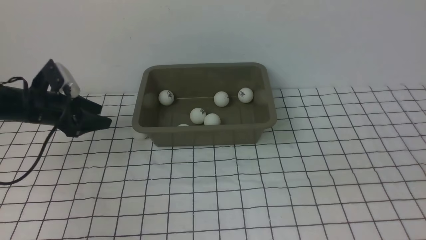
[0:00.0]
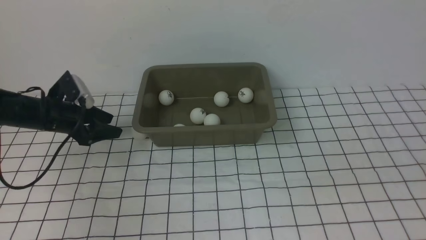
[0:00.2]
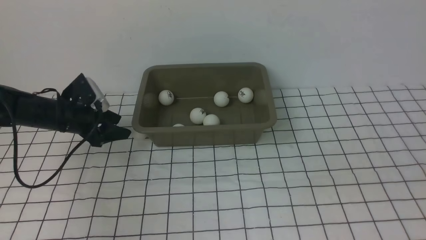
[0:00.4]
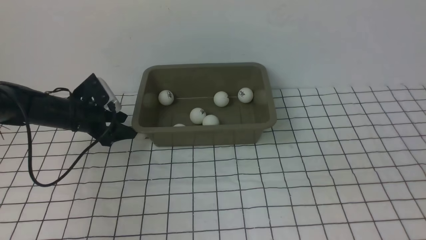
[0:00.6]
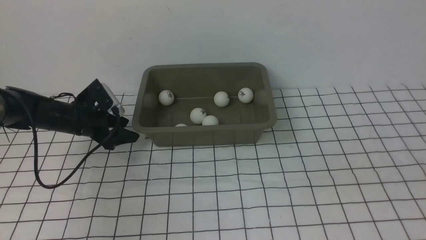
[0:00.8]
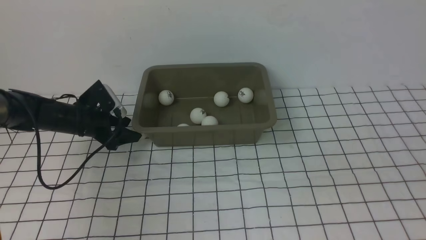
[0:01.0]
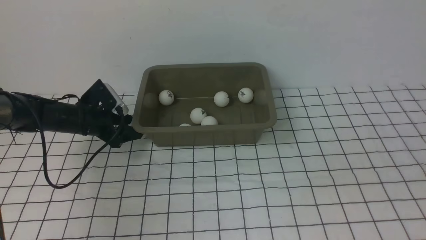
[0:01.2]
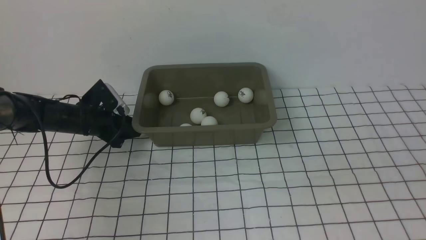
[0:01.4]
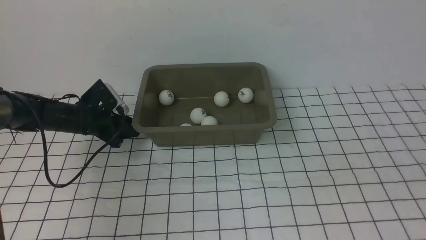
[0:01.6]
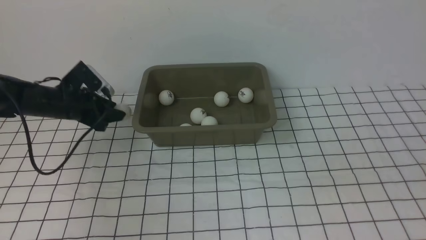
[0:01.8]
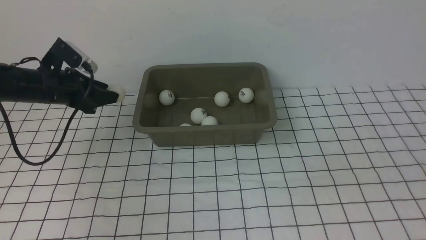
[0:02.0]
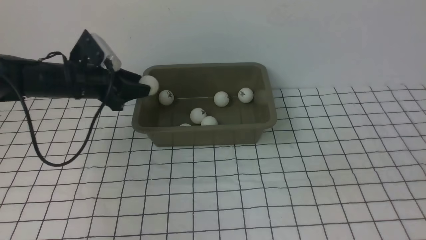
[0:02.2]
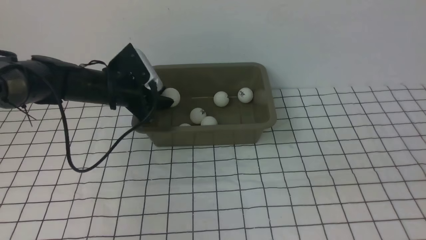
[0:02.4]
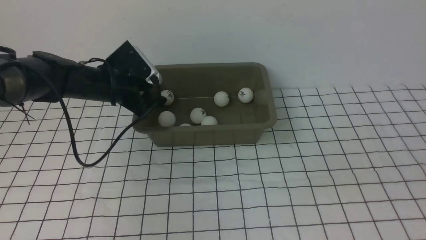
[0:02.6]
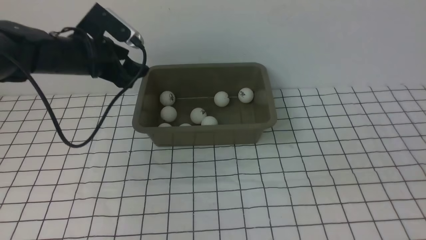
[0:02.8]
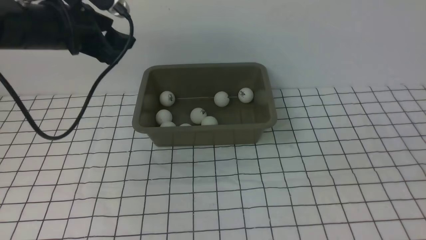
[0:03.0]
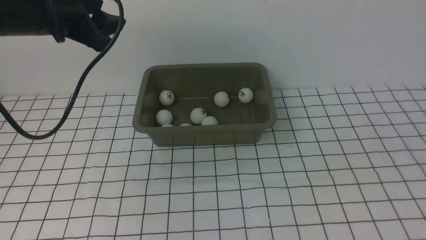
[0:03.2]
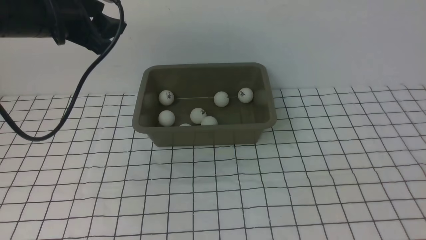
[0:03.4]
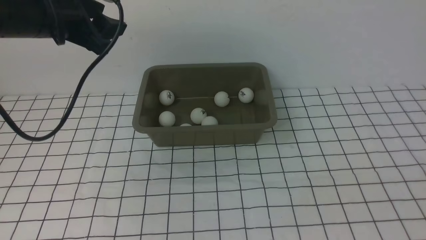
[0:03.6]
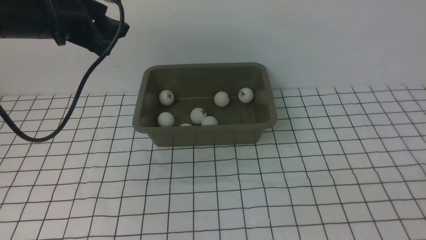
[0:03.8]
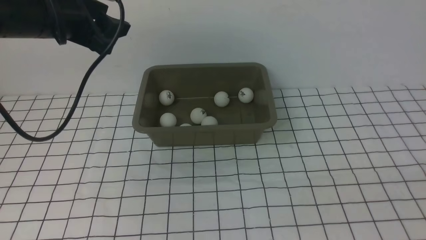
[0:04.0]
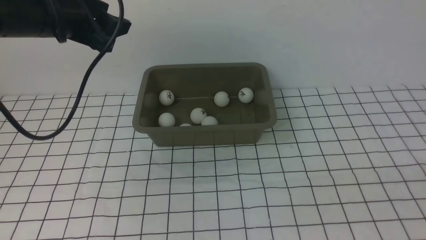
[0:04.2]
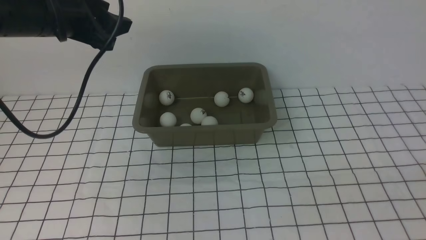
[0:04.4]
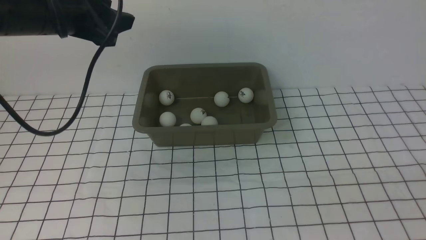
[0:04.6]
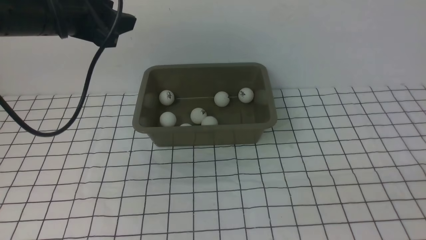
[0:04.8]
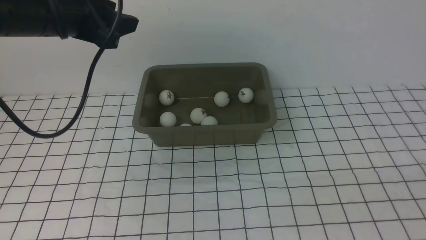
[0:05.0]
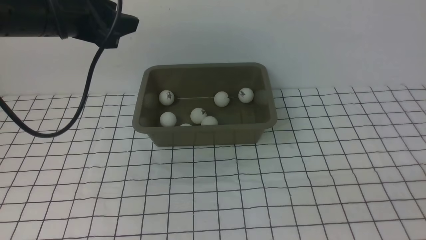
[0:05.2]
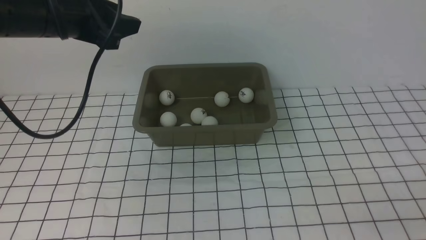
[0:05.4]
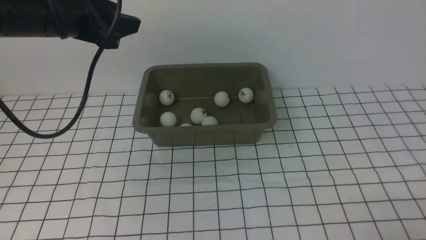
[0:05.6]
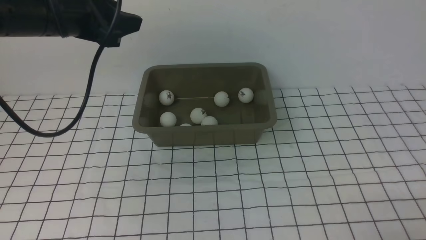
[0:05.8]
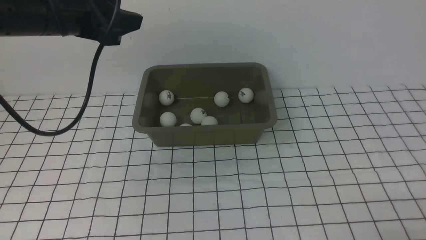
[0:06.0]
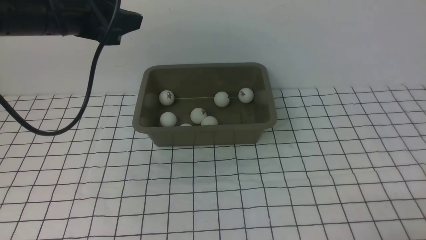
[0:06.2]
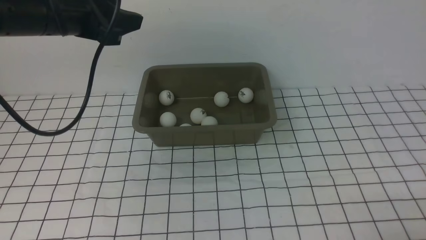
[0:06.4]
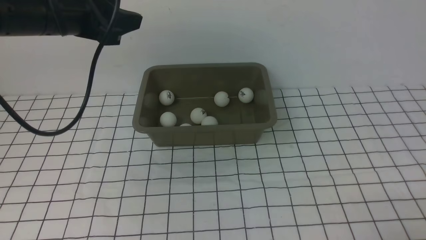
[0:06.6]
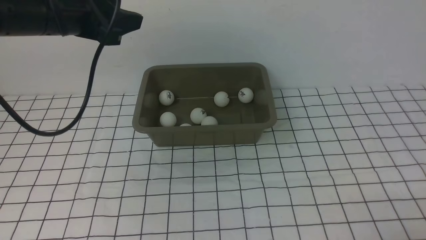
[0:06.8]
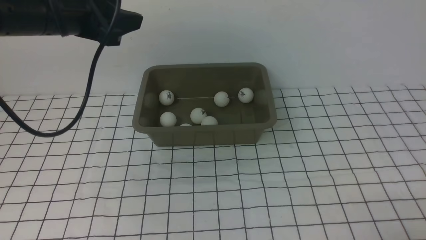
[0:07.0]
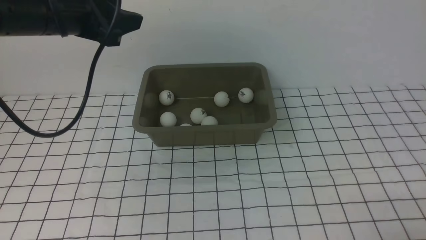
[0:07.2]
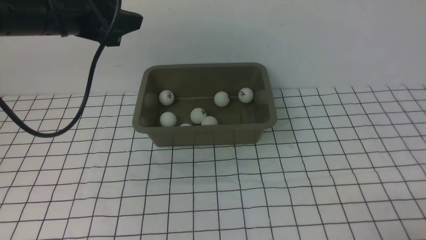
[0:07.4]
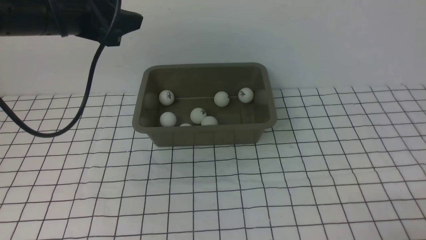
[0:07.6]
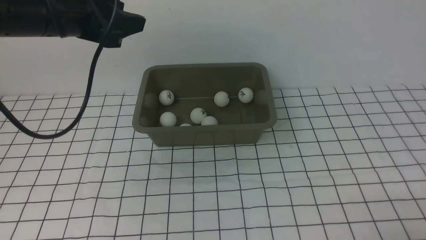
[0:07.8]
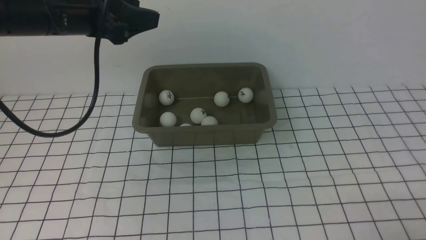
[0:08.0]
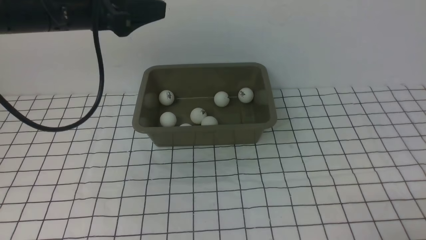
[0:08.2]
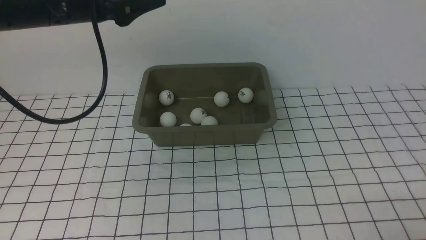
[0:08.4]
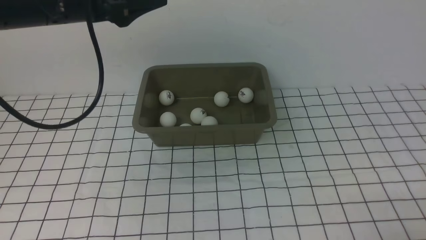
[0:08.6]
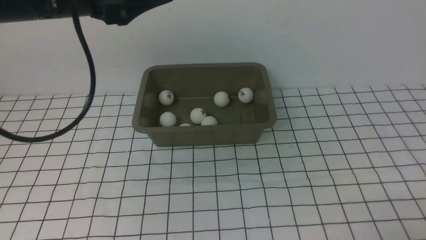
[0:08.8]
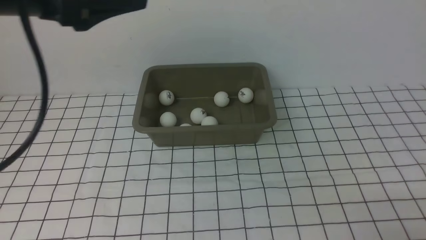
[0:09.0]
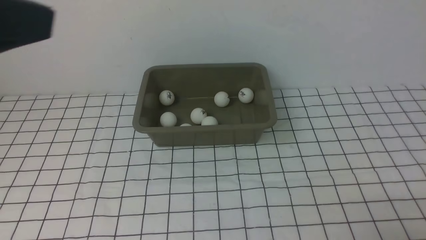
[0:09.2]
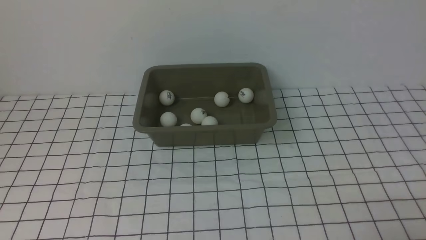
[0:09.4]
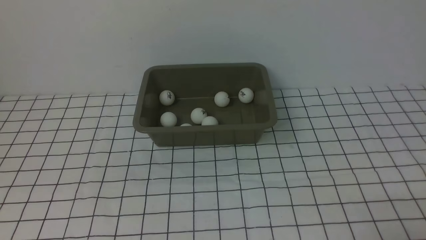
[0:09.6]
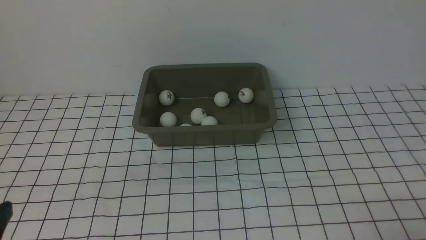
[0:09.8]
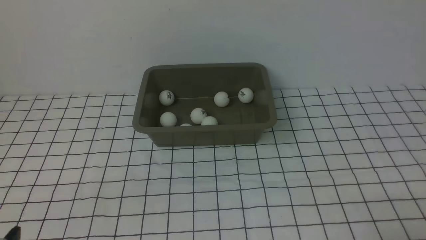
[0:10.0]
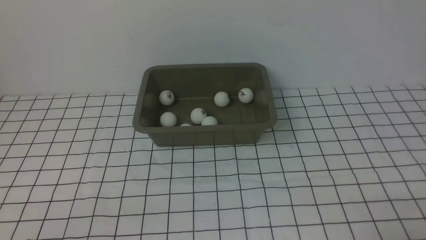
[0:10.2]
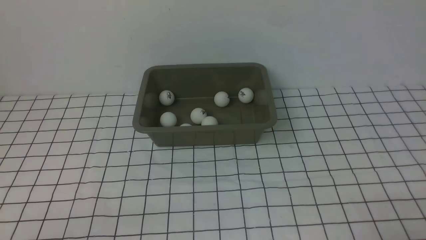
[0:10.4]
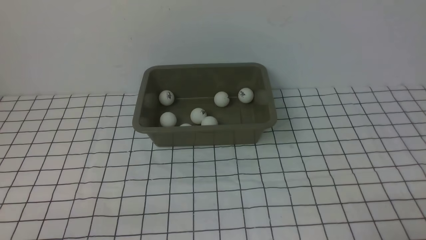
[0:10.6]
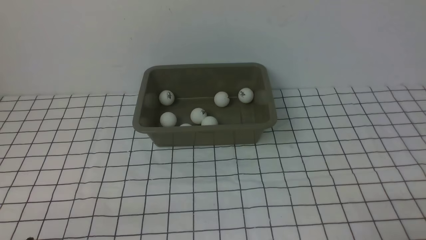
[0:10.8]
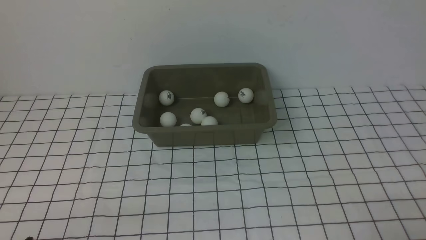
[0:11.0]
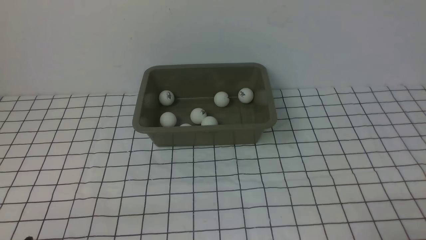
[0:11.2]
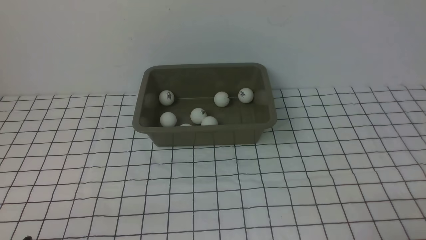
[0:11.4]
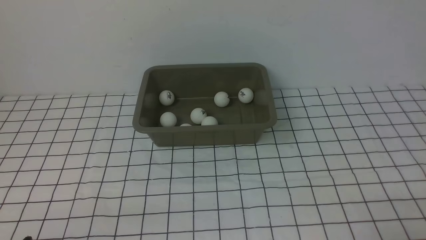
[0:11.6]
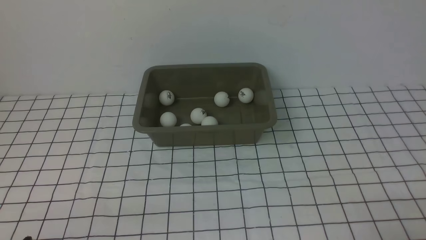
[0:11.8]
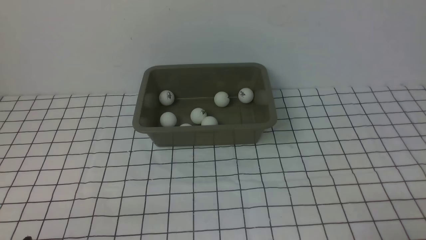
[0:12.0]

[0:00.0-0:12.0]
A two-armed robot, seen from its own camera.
Step, 0:00.0 to 0:01.8: use the left arm to clamp the table tennis ball closest to it.
Step, 0:02.0 to 0:02.8: use the left arm to put the table tennis ball into the box.
0:00.0 to 0:01.6: The left gripper shifts some 5 cm downward, and closes its fingers.
0:01.6 to 0:03.0: The left gripper heads upward, covering roughly 20 cm, and opens.
0:07.6 to 0:09.0: The left gripper goes about 15 cm backward and upward.
0:09.0 to 0:10.4: The left gripper travels downward and backward by about 35 cm.

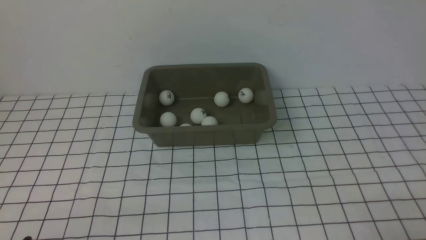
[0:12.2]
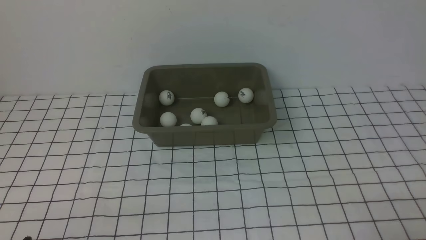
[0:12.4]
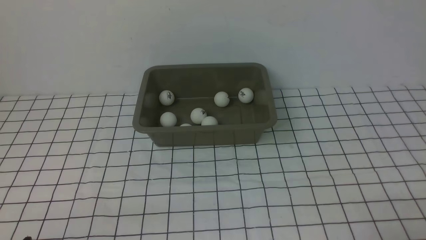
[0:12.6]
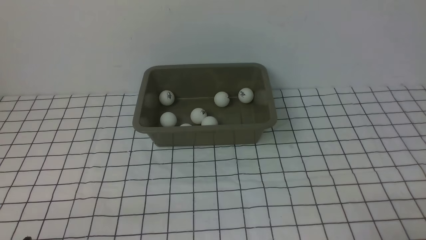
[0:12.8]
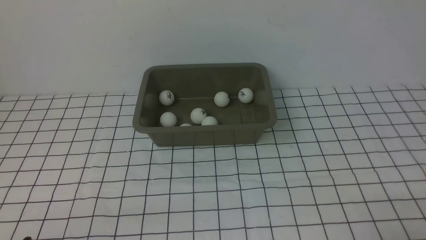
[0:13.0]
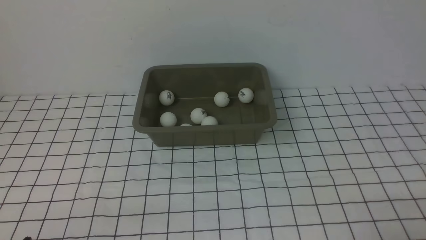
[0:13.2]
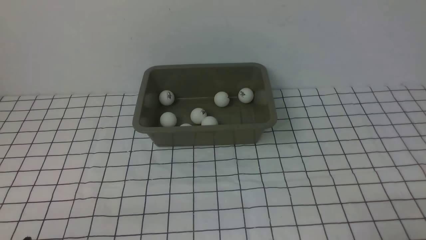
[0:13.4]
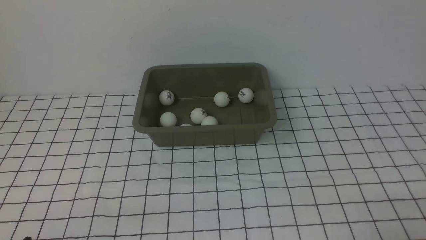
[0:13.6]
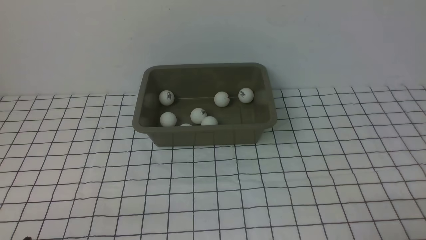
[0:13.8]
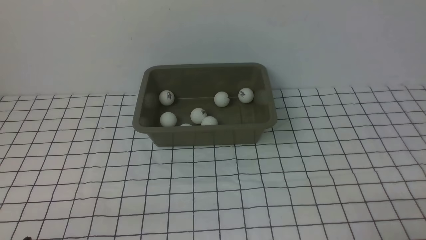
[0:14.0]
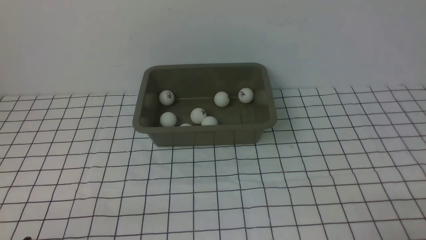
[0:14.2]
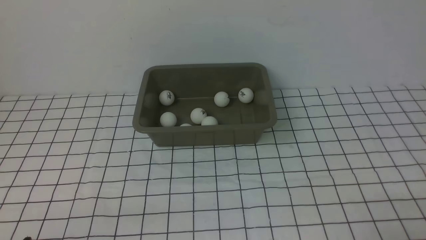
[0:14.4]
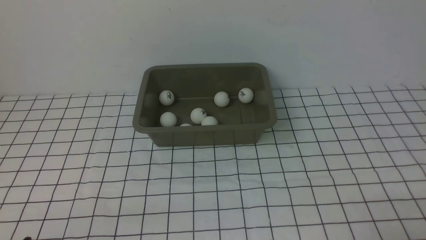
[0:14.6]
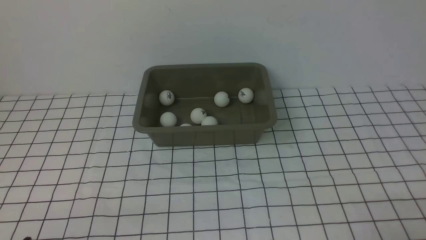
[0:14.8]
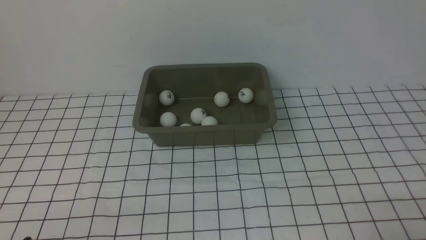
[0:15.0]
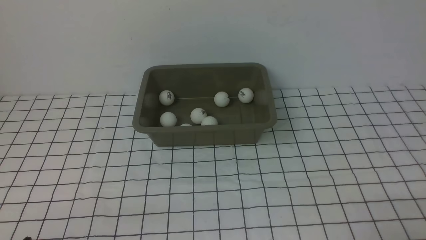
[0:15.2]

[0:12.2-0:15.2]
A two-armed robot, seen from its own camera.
0:12.2 to 0:15.2: Neither gripper changes place.

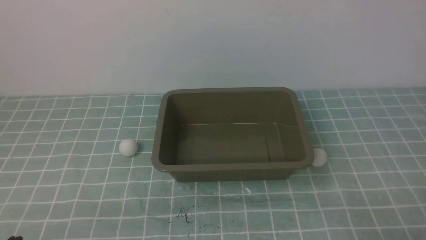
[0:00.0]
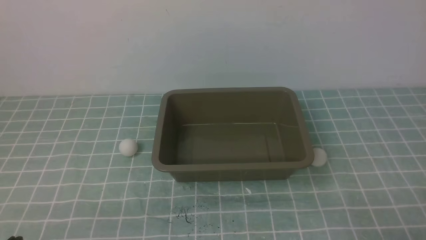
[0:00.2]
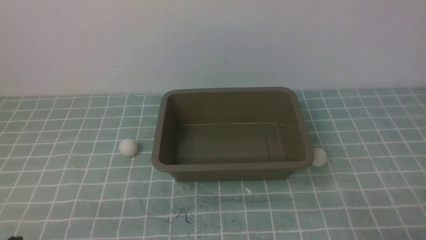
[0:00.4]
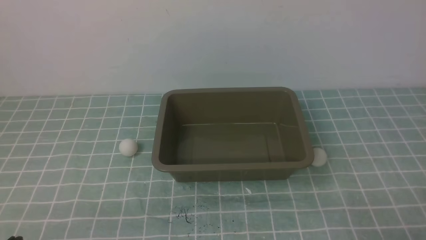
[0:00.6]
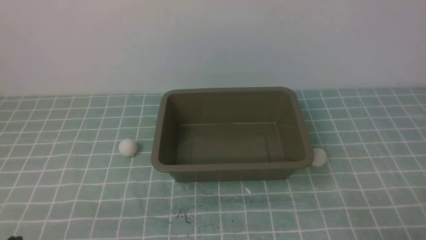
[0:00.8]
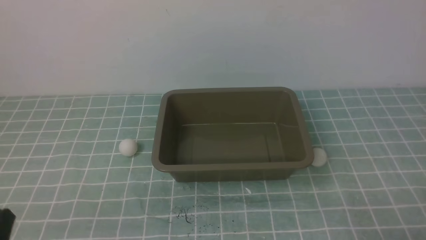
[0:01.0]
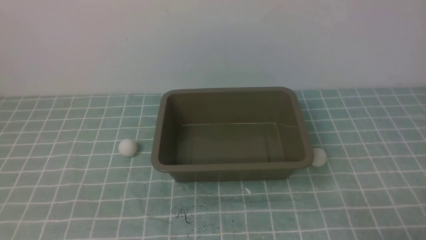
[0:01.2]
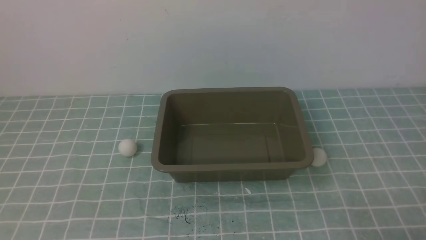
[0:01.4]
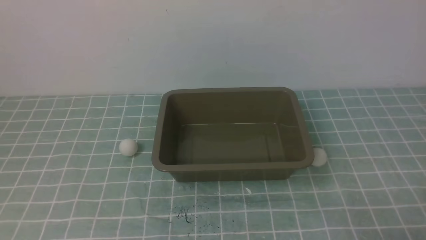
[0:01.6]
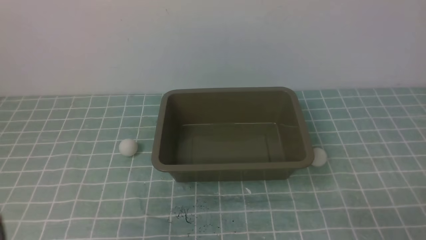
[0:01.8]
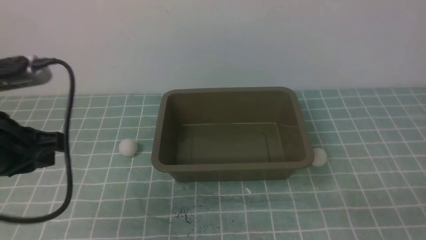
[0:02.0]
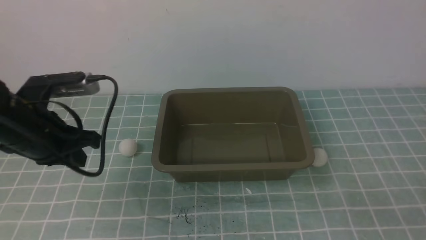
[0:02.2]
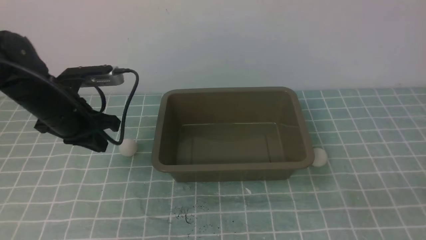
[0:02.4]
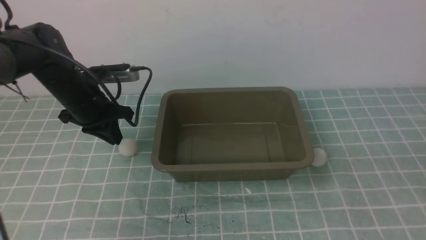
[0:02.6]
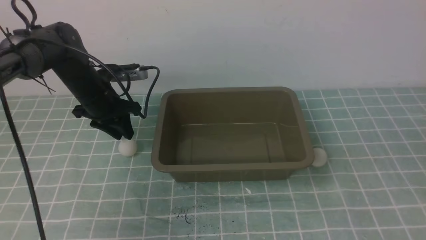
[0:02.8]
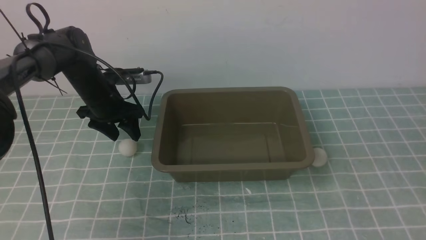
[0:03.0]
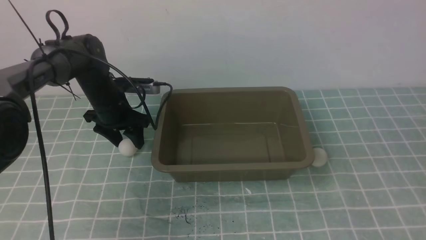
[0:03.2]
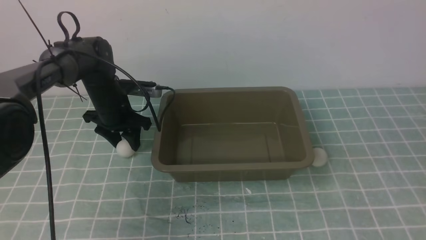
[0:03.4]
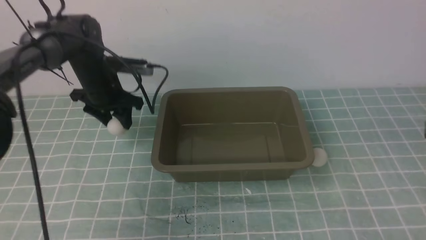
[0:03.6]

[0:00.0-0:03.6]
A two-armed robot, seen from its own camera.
Step, 0:00.0 to 0:03.6: use the left arm to clamp the table tennis ball closest to it.
0:01.8 to 0:03.6: The right gripper shifts some 20 cm forward and upward. The left gripper shifts approximately 30 cm forward, and opens.
